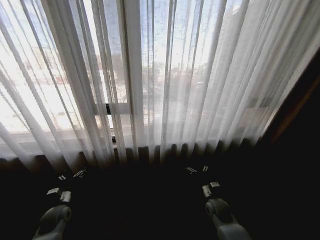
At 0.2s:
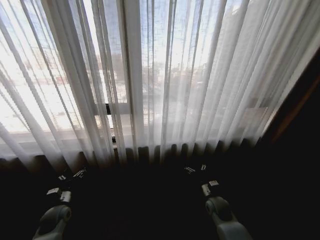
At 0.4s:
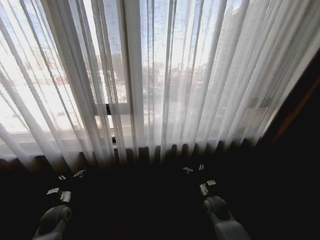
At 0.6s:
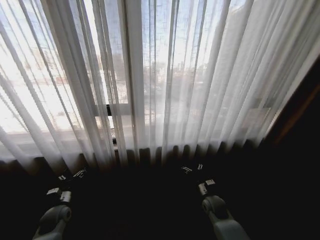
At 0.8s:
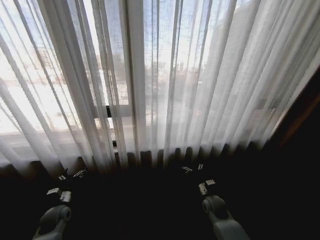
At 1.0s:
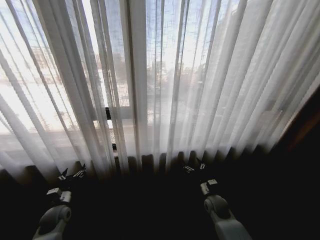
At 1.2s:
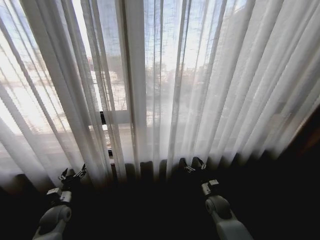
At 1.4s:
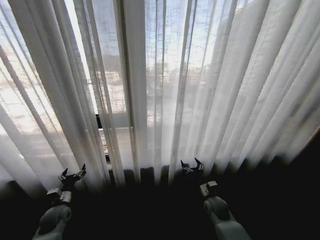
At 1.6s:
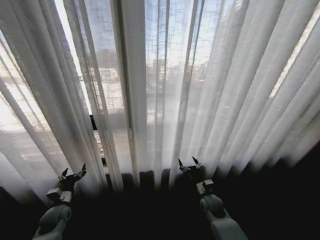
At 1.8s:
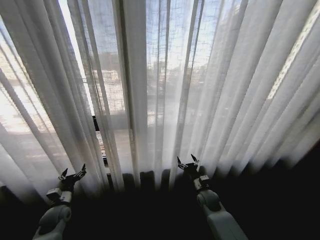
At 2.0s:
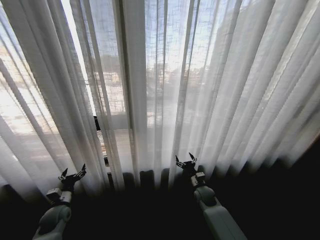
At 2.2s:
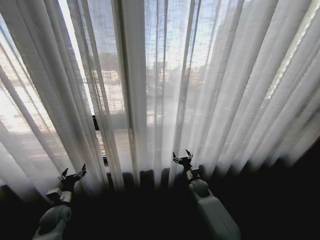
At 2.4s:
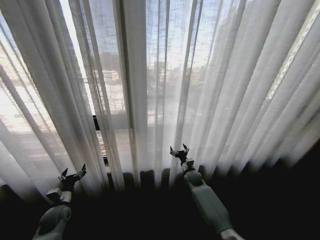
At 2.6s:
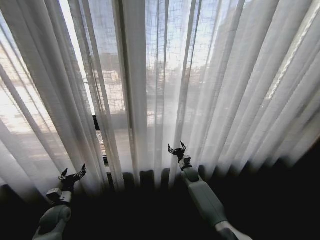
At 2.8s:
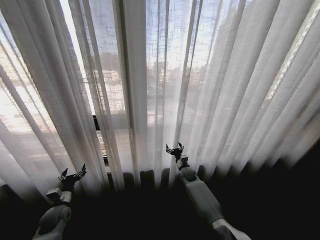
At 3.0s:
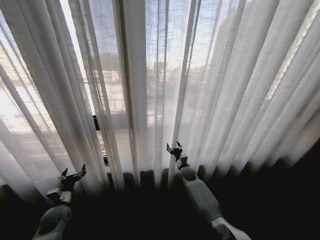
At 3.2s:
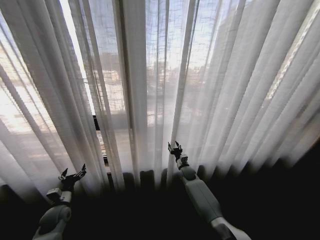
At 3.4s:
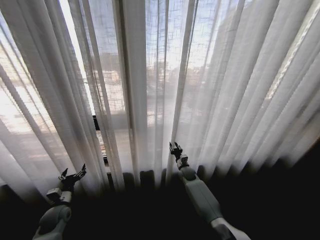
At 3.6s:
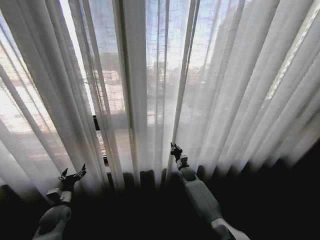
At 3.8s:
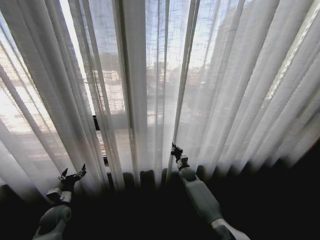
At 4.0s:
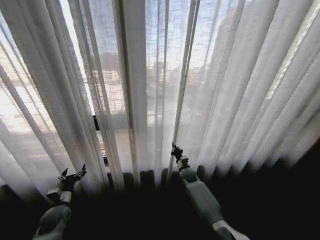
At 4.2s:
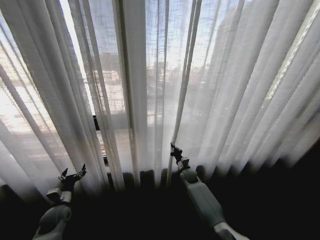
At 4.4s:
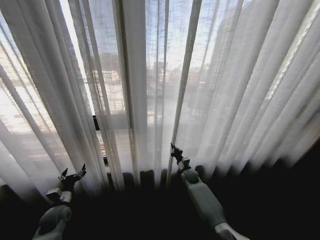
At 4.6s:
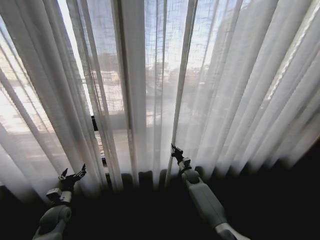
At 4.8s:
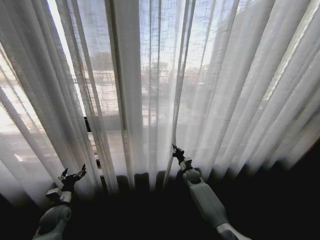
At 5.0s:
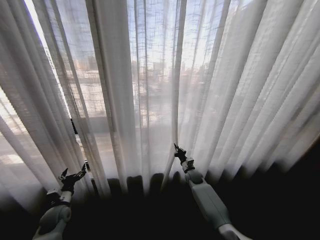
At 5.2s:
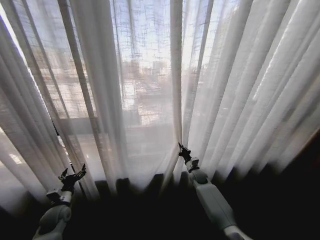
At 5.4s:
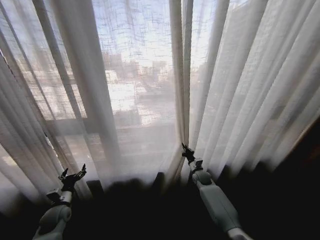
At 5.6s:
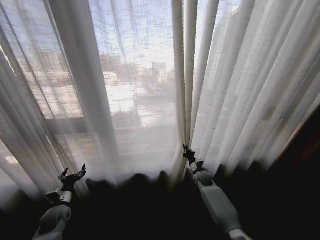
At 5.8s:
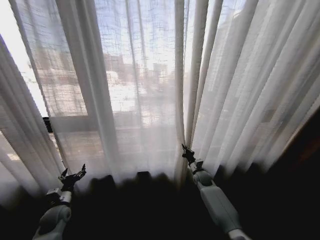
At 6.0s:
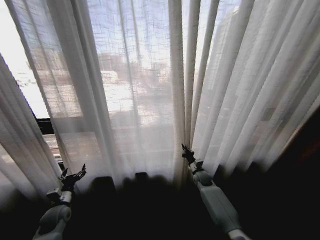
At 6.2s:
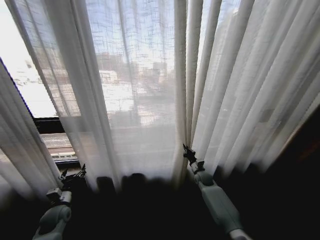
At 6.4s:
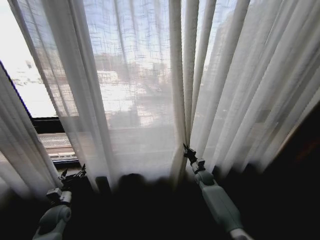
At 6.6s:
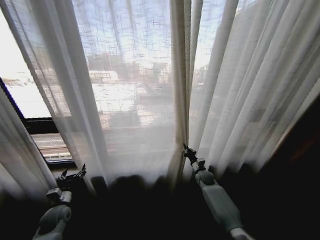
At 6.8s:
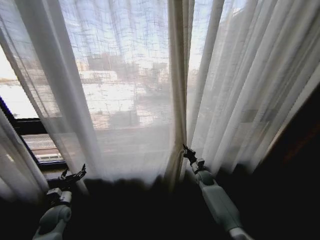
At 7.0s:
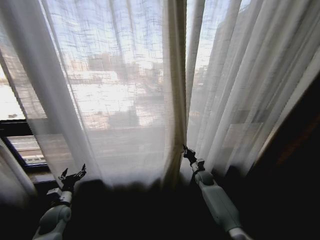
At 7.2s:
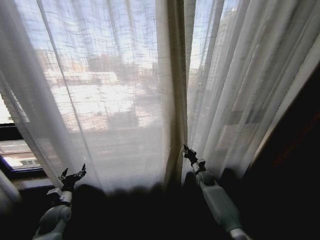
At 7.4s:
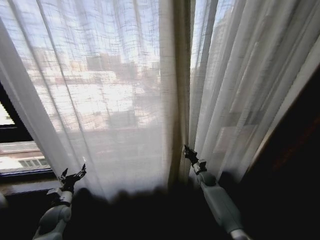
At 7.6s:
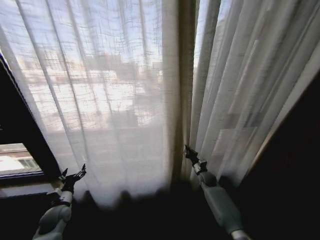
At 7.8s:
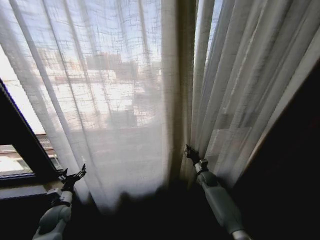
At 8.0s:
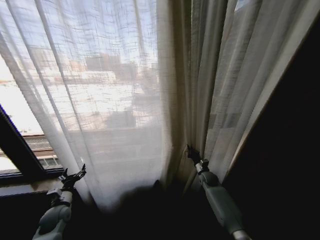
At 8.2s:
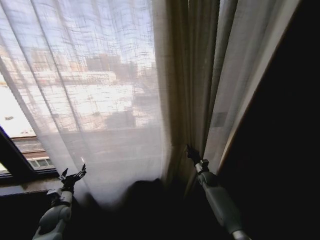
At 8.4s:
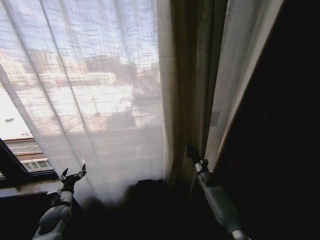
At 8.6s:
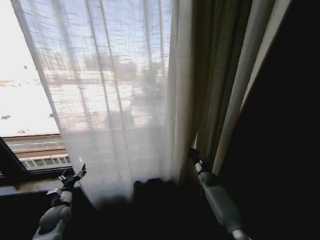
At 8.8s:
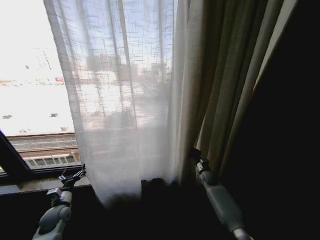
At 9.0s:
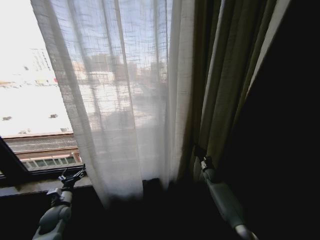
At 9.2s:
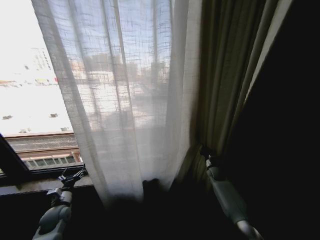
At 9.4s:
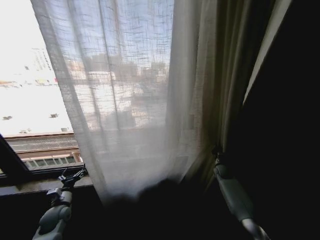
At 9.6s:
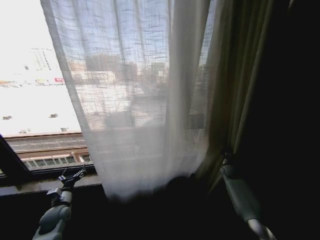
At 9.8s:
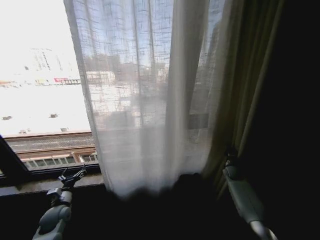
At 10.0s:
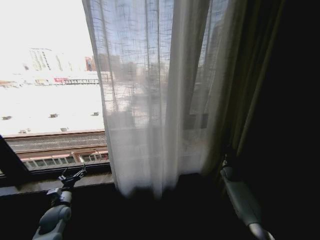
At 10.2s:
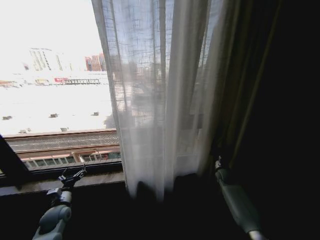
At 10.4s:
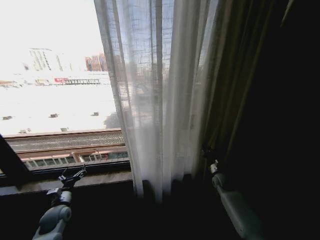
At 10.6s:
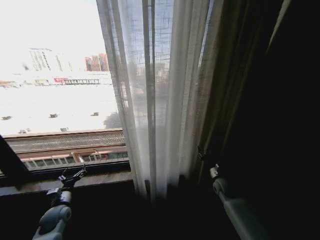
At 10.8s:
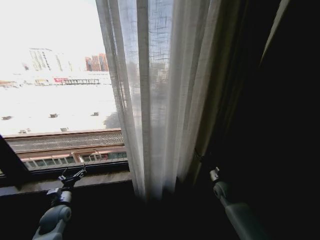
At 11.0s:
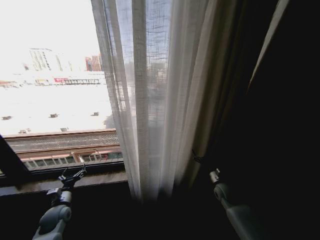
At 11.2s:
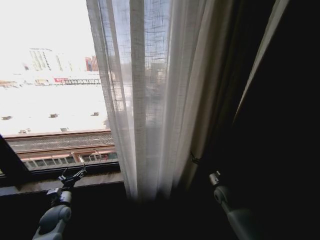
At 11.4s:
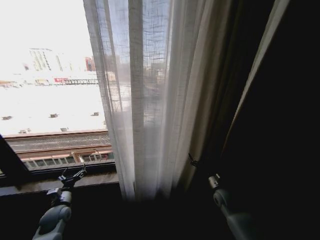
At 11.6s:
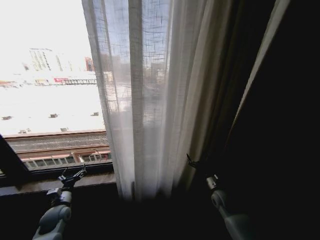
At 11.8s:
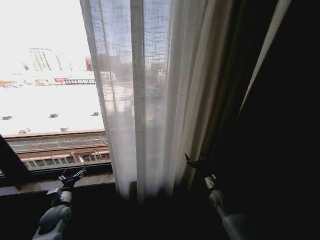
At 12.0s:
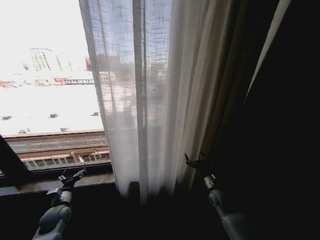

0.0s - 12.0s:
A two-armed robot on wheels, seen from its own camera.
Task of the whole recording: Open the curtains by pulling them apart, changing their state from closed to fully open.
1.6s - 3.0s: The right gripper heads forward and to the left, covering some 20 cm.
3.0s - 4.4s: The right gripper closes.
4.4s - 6.0s: The right gripper shifts some 5 cm to the right.
9.0s - 10.4s: The right gripper goes about 5 cm backward, and goes to the right and returns, some 10 cm each way.
10.4s - 12.0s: The right gripper goes approximately 10 cm backward and to the left, and opens.

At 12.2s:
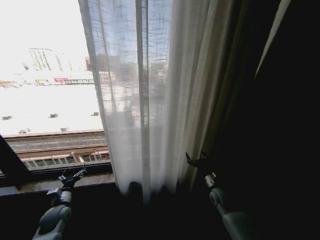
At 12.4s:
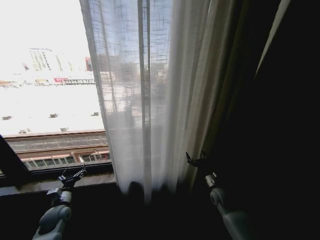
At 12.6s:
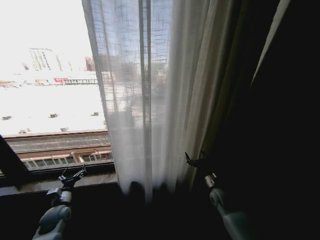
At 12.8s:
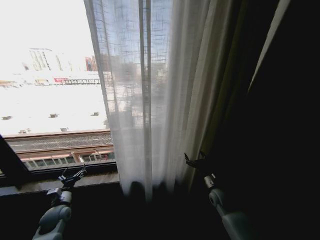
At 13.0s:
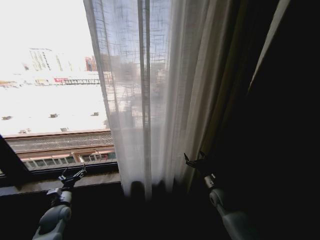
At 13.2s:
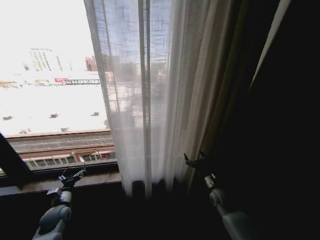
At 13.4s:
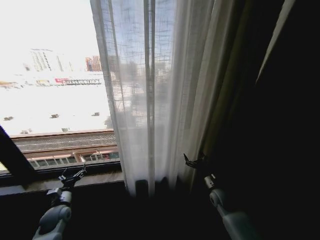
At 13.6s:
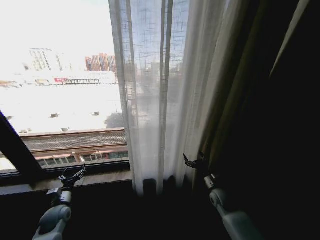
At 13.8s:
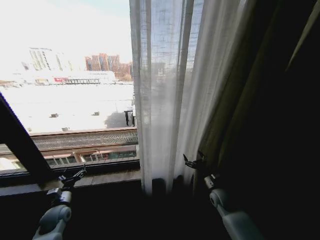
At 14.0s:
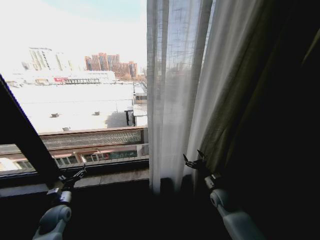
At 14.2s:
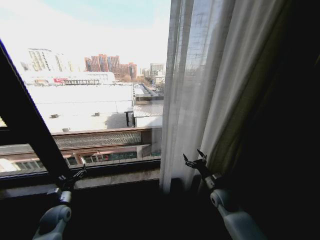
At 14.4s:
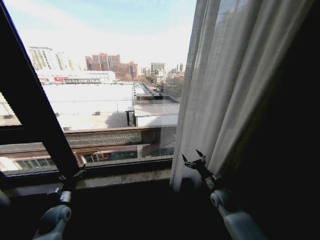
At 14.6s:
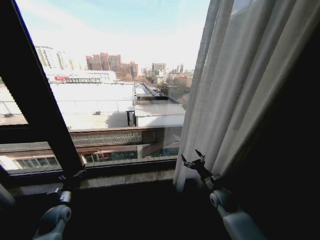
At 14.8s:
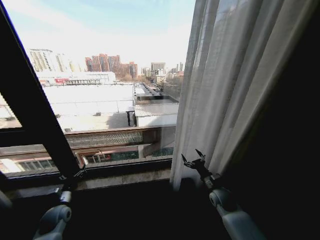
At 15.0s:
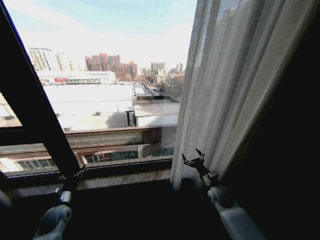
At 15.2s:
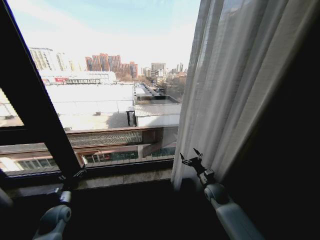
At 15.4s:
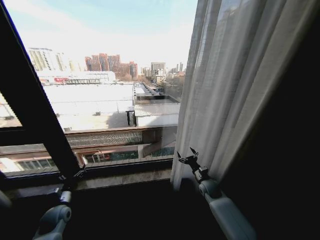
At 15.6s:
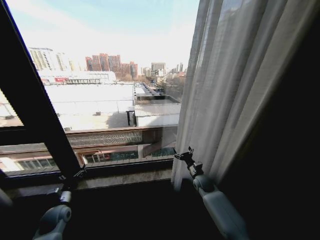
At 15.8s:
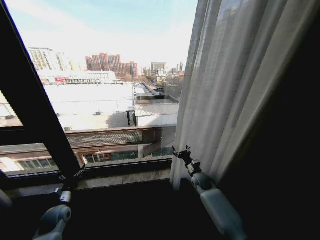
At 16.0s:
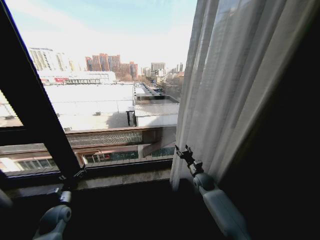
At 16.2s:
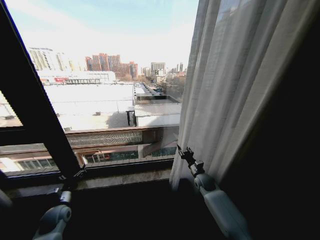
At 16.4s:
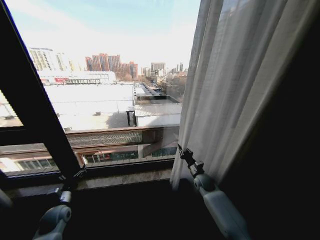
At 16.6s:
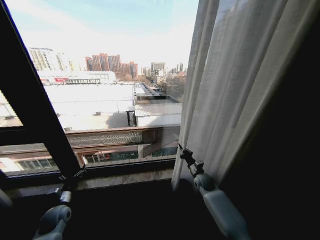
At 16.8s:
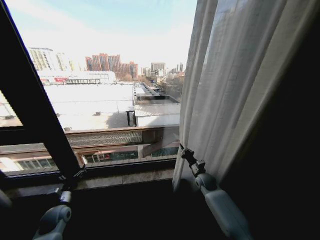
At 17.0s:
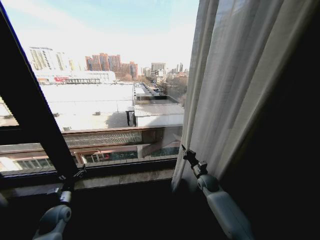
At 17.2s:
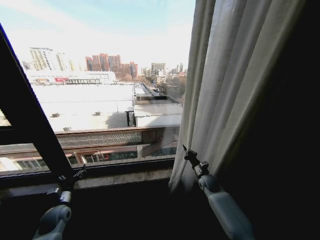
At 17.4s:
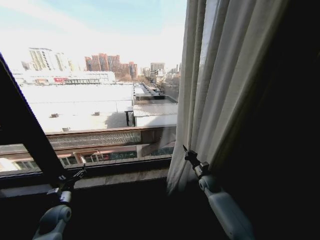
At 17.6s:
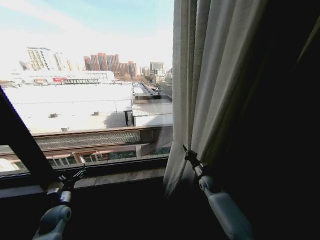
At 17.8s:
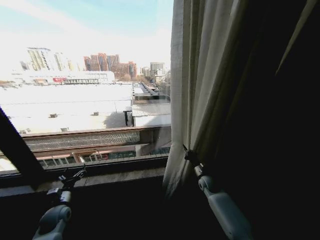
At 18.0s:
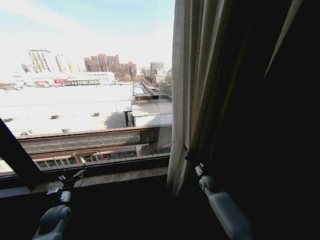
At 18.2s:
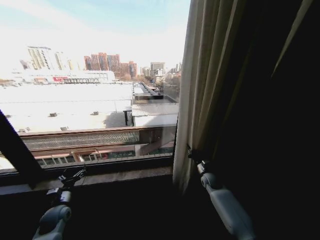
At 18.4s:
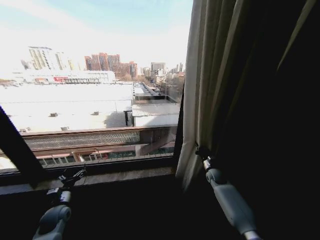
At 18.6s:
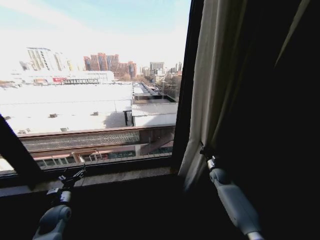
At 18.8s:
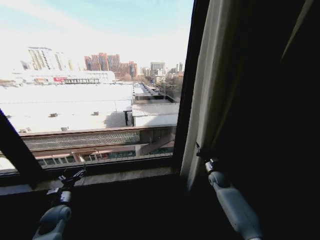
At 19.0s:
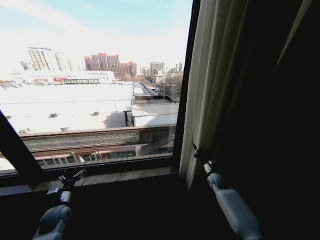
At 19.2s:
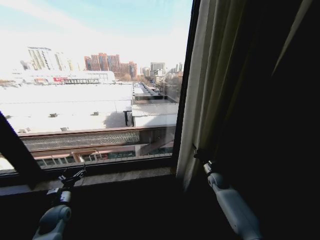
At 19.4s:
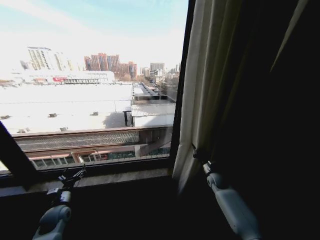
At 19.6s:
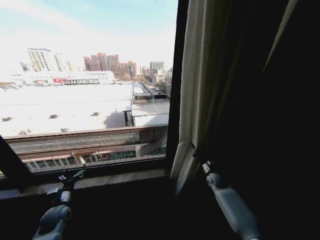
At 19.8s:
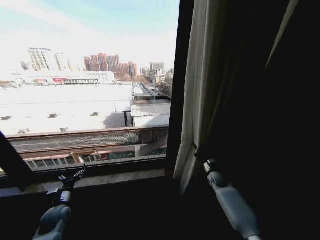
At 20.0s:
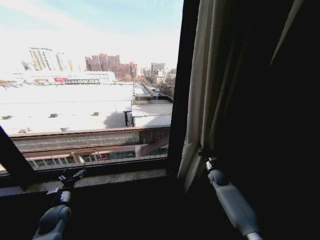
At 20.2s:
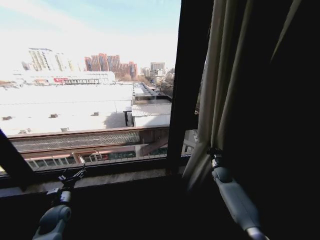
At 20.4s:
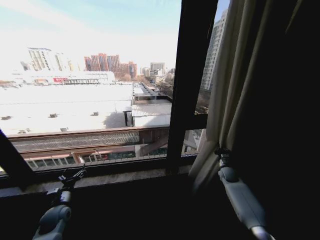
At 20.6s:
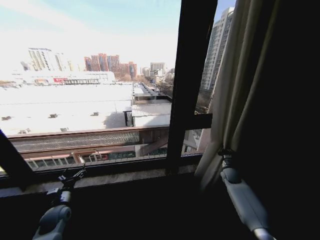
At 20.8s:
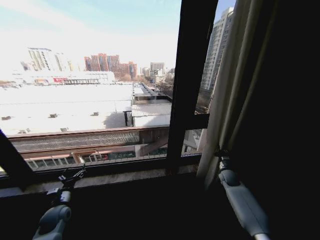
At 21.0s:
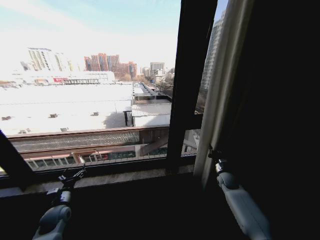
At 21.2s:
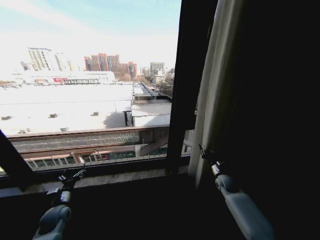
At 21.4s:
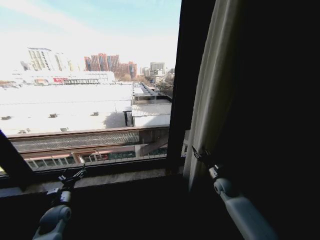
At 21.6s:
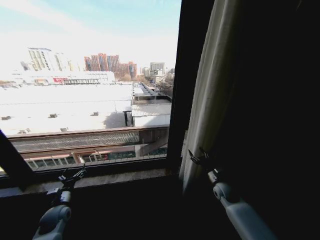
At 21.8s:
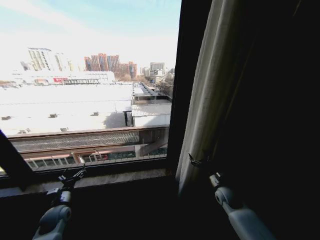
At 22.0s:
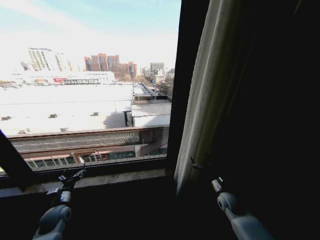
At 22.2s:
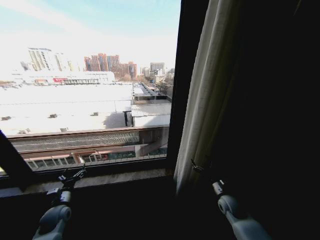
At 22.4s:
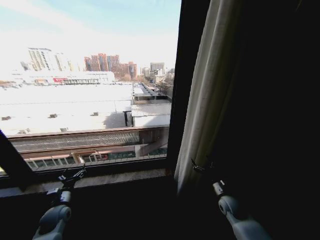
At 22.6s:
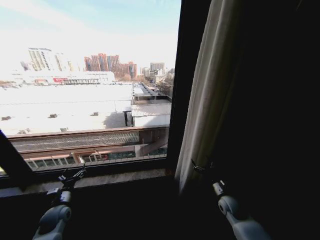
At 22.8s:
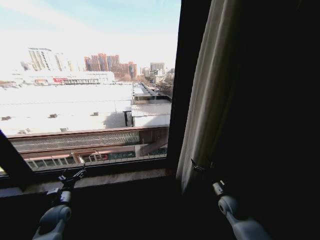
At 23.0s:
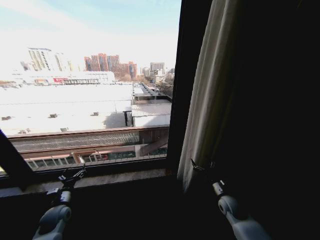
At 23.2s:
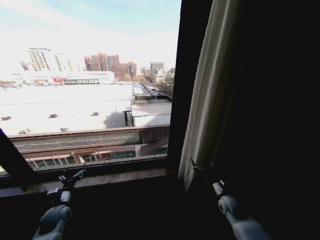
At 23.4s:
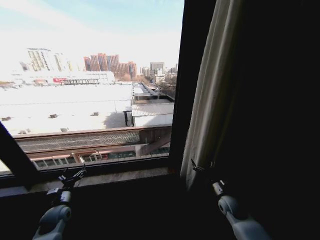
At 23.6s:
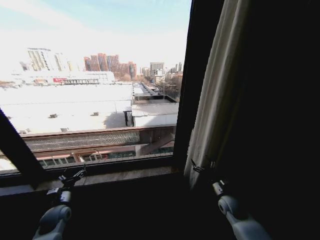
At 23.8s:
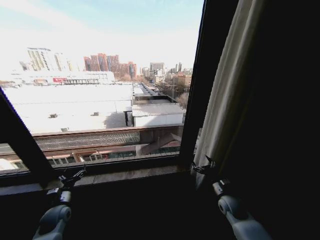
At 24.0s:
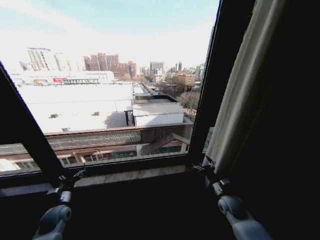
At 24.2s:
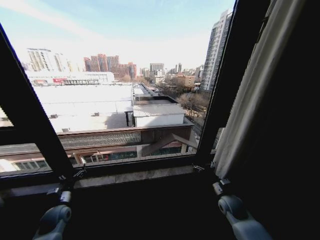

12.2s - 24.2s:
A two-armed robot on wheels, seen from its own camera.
Task of the whole recording: Open the curtains by pulling them apart, changing their state from closed to fully open.
15.2s - 16.6s: The right gripper goes about 5 cm forward, and closes up.
16.6s - 18.2s: The right gripper ends up approximately 5 cm from where it was.
18.2s - 19.8s: The grippers move only a little.
19.8s - 21.2s: The right gripper travels to the right and back again, roughly 10 cm each way.
21.2s - 22.6s: The right gripper goes about 10 cm backward, and opens.
